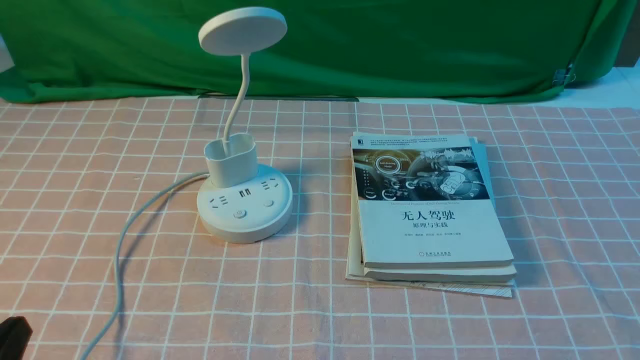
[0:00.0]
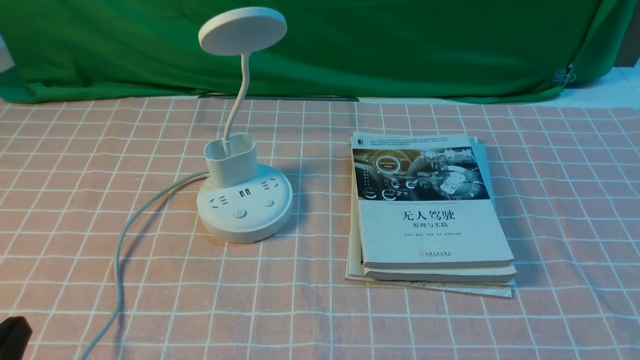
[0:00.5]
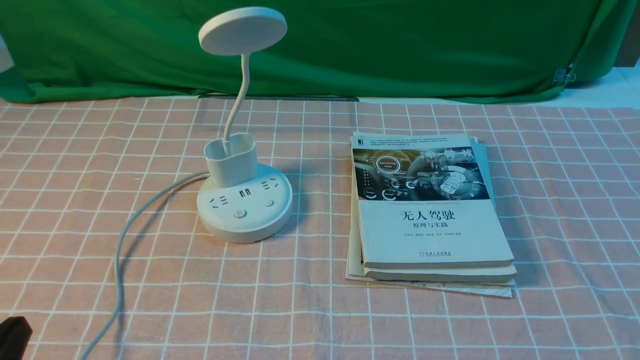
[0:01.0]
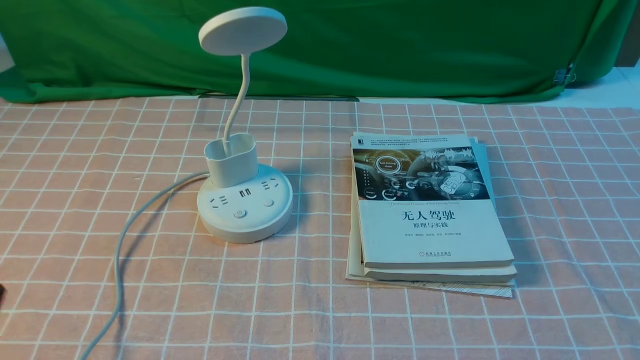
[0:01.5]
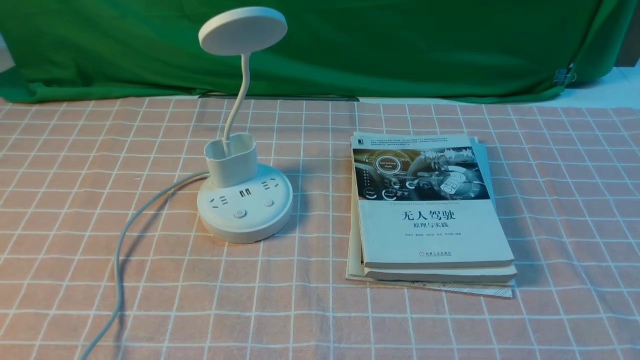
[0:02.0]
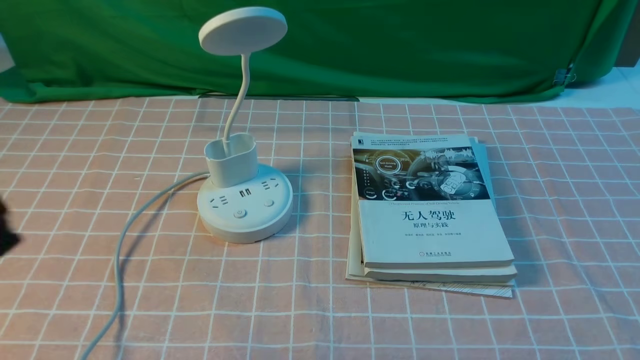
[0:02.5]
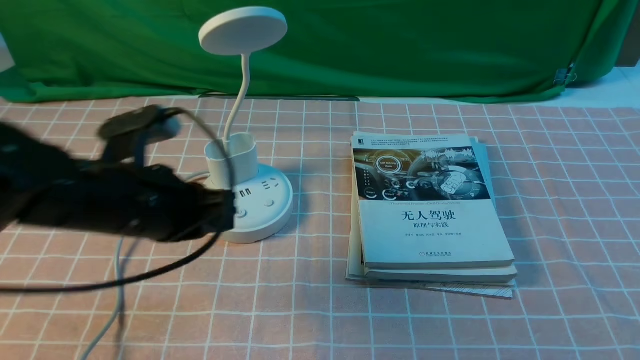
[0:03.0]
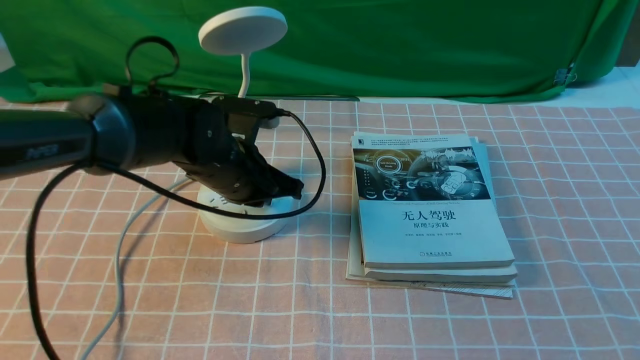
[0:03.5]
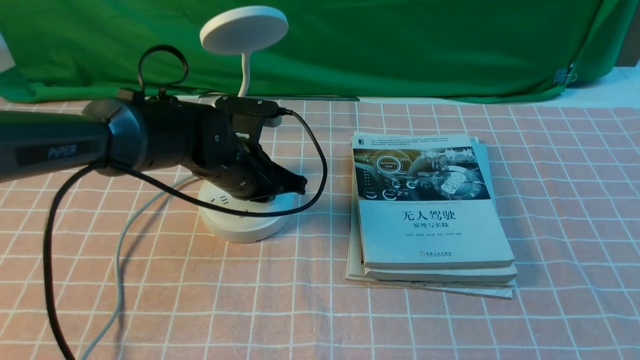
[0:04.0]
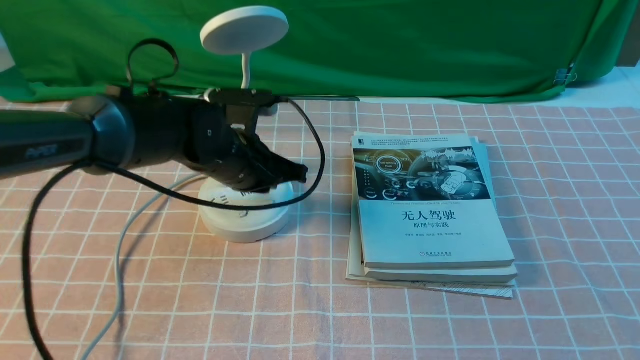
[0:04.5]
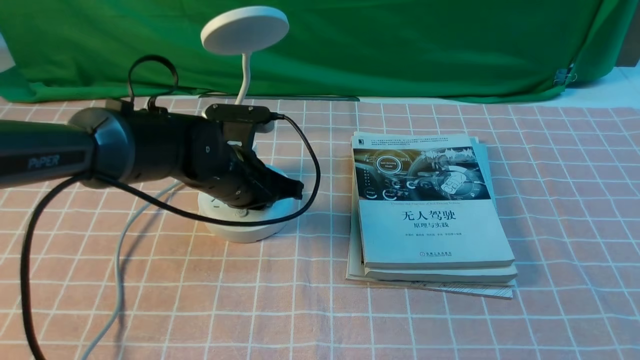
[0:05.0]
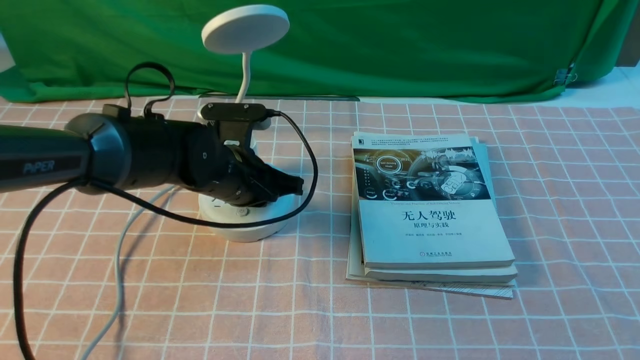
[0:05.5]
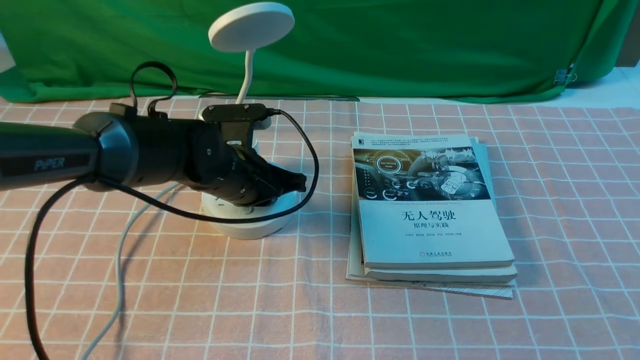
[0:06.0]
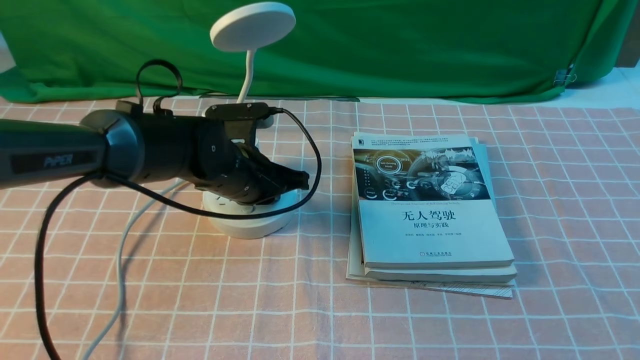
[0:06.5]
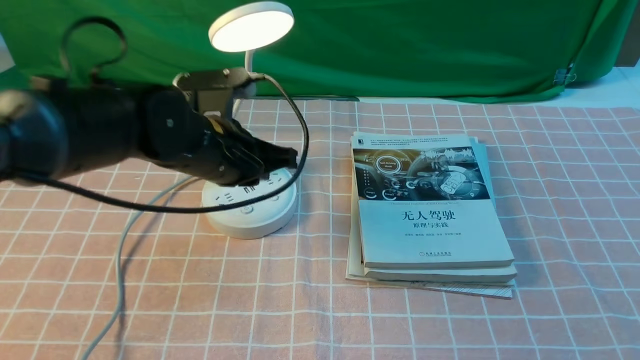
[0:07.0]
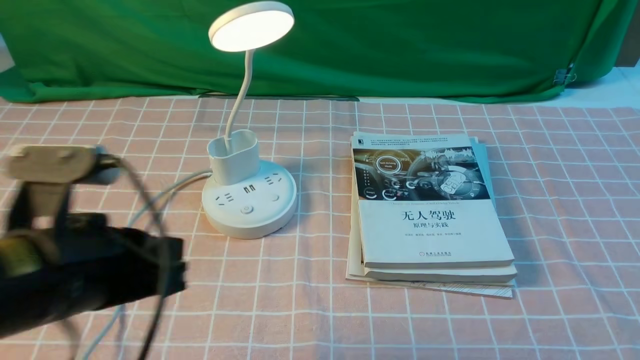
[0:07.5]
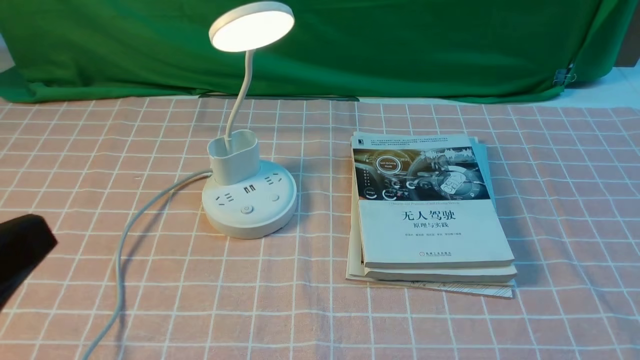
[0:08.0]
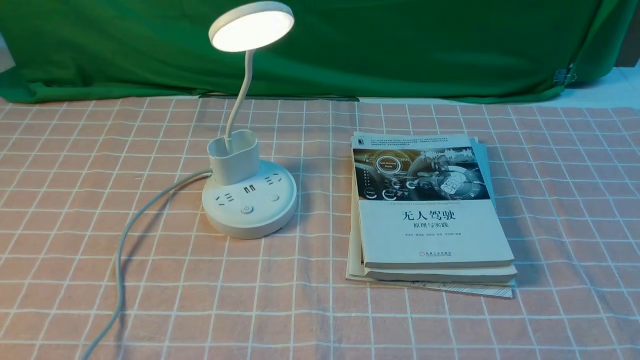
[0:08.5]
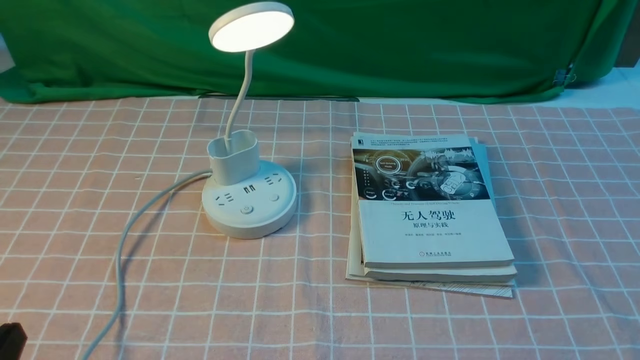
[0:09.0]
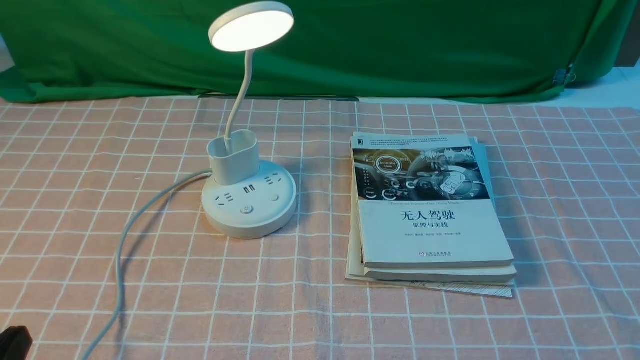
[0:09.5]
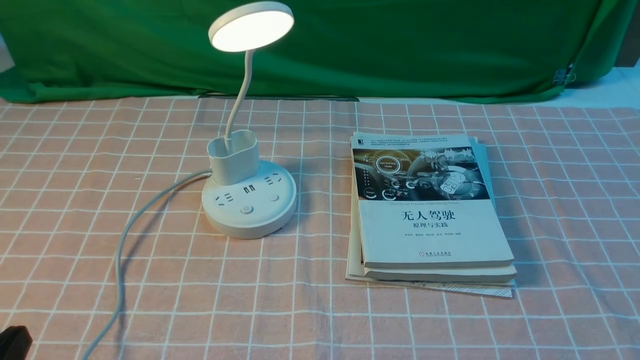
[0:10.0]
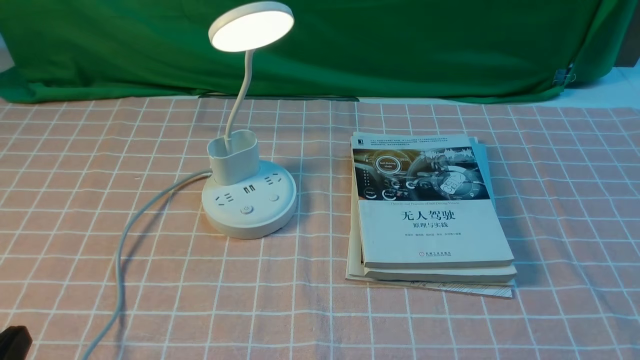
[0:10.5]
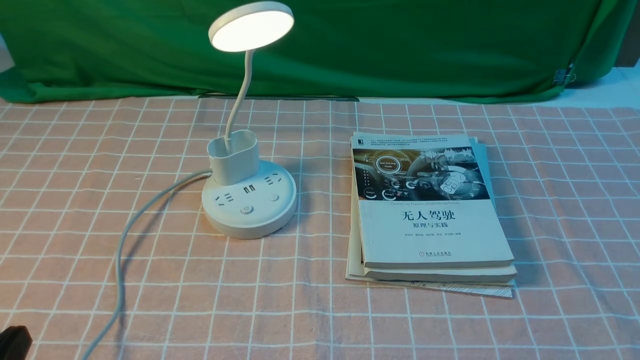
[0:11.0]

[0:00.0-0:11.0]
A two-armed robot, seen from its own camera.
Step, 0:00.0 to 0:07.0: use the left arm to press the button switch on the lamp holder.
0:02.0 to 0:03.5: The left gripper shifts roughly 35 cm forward and to the right, and opens its fingers.
0:03.5 to 0:05.5: The grippers move only a little.
0:05.5 to 0:07.5: The left gripper travels backward, upward and to the left by some 25 cm.
0:07.5 to 0:09.0: The left gripper heads backward, downward and to the left, covering some 15 cm.
